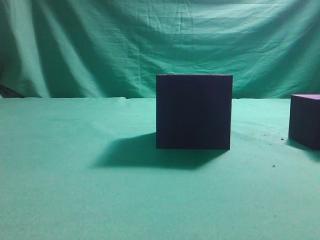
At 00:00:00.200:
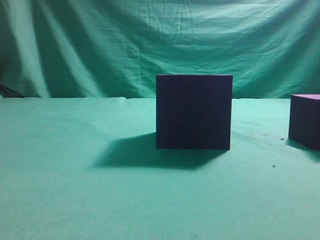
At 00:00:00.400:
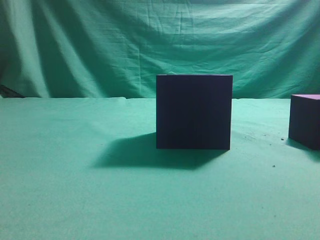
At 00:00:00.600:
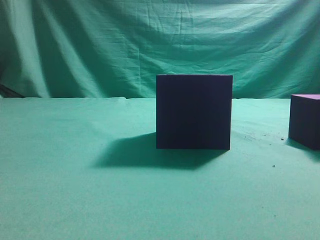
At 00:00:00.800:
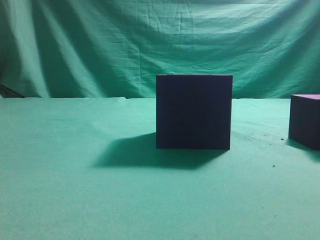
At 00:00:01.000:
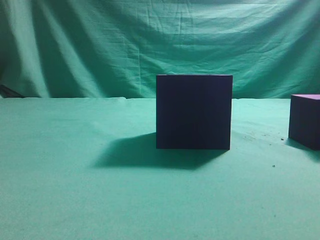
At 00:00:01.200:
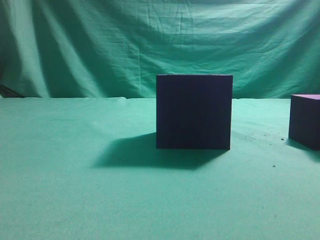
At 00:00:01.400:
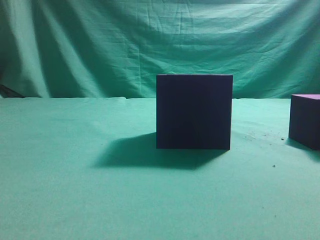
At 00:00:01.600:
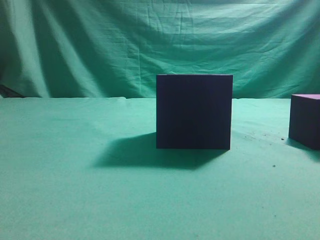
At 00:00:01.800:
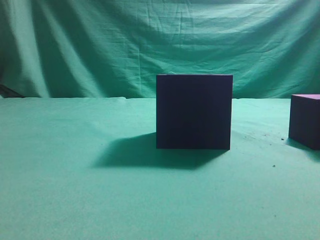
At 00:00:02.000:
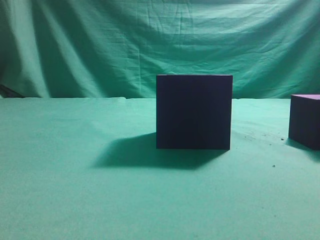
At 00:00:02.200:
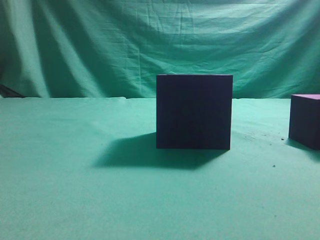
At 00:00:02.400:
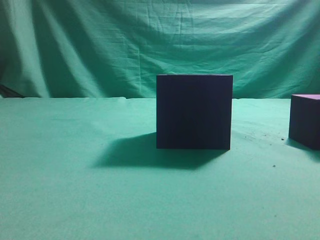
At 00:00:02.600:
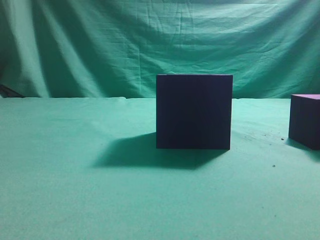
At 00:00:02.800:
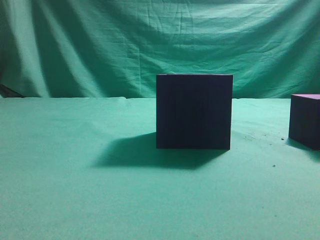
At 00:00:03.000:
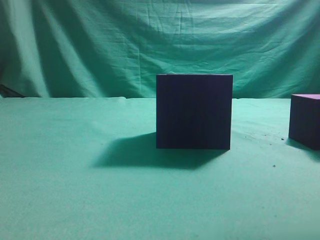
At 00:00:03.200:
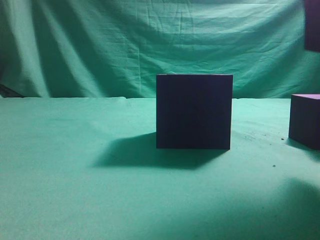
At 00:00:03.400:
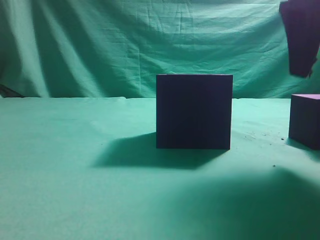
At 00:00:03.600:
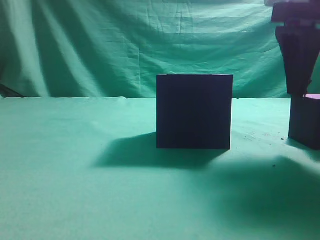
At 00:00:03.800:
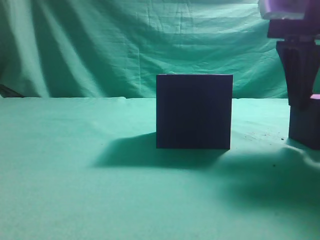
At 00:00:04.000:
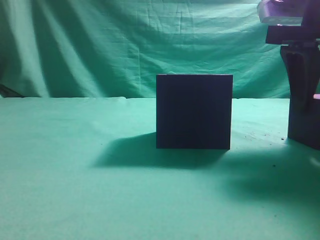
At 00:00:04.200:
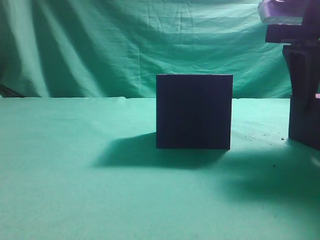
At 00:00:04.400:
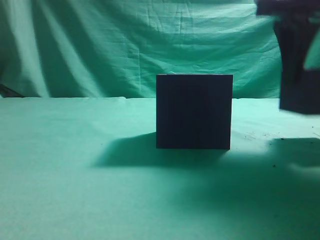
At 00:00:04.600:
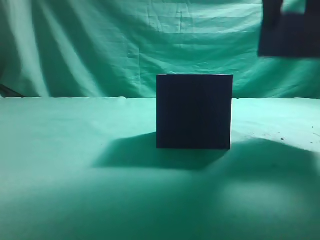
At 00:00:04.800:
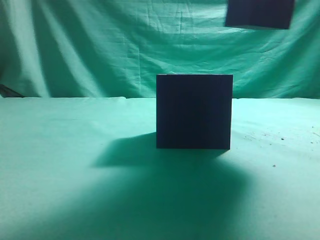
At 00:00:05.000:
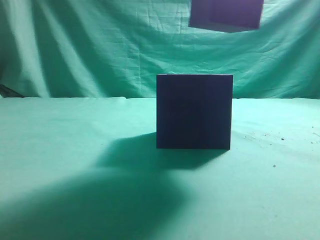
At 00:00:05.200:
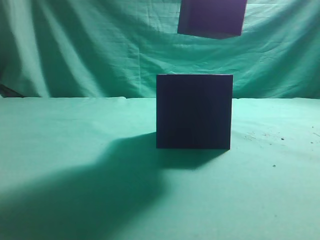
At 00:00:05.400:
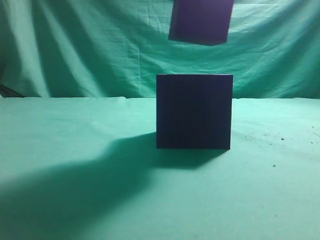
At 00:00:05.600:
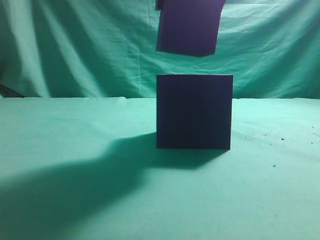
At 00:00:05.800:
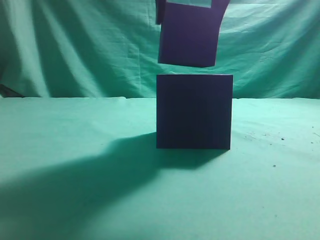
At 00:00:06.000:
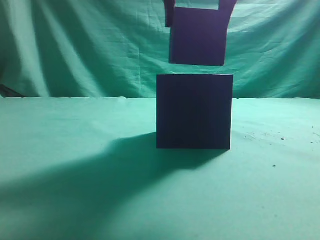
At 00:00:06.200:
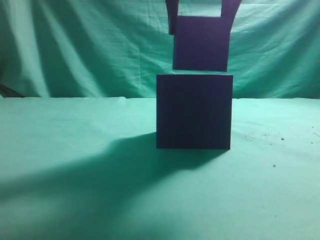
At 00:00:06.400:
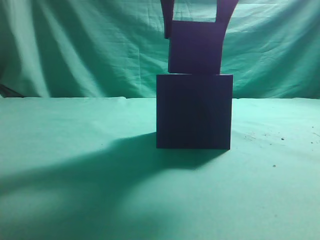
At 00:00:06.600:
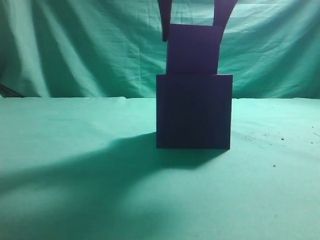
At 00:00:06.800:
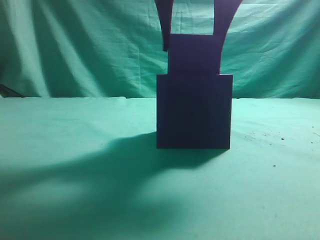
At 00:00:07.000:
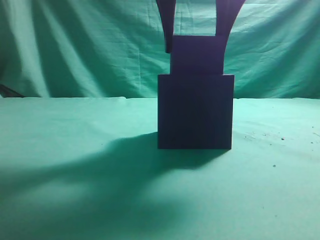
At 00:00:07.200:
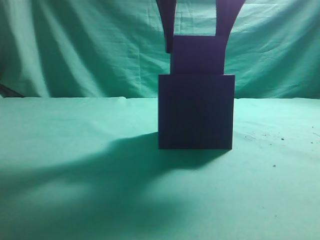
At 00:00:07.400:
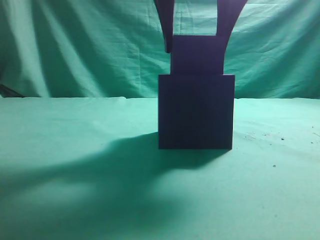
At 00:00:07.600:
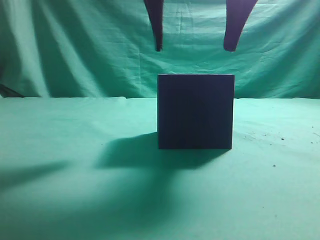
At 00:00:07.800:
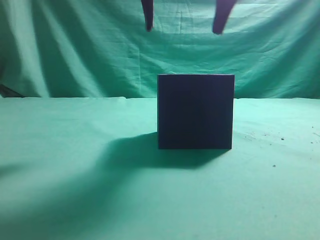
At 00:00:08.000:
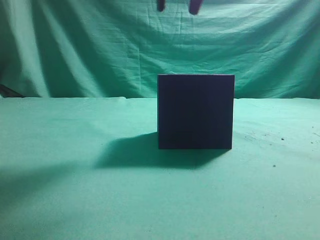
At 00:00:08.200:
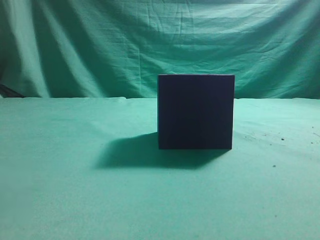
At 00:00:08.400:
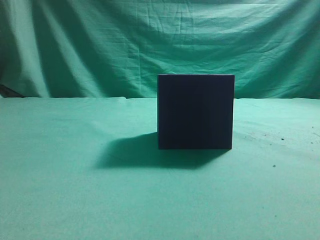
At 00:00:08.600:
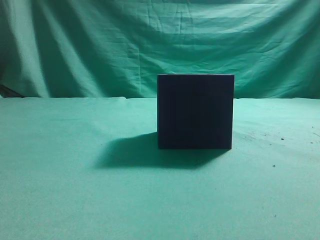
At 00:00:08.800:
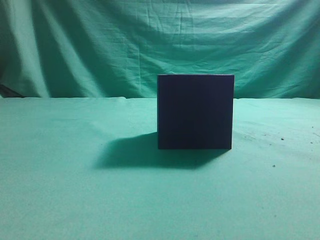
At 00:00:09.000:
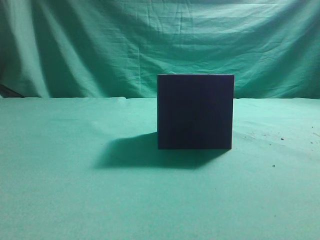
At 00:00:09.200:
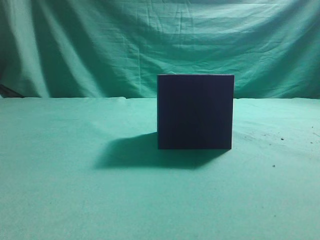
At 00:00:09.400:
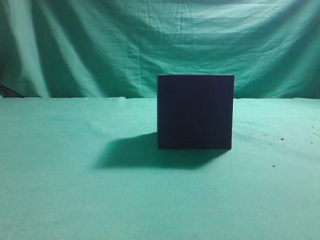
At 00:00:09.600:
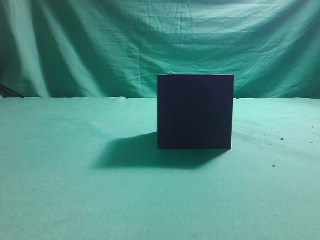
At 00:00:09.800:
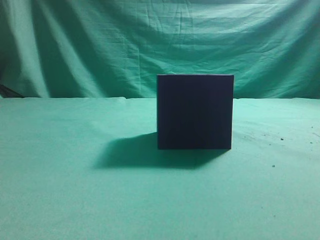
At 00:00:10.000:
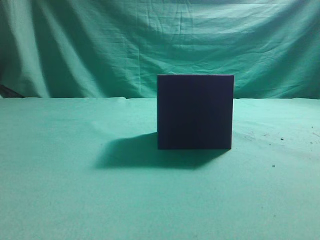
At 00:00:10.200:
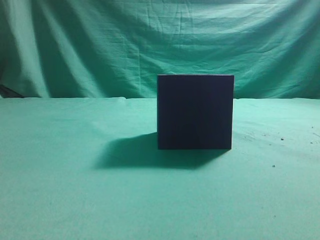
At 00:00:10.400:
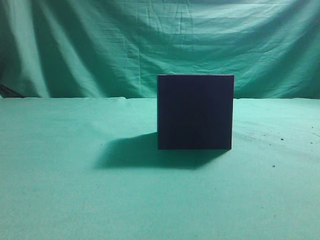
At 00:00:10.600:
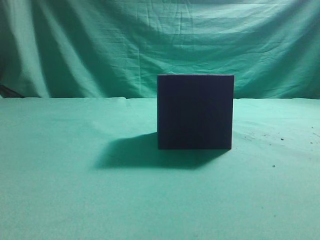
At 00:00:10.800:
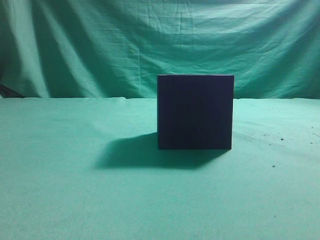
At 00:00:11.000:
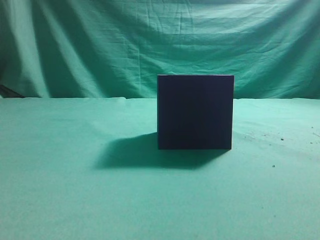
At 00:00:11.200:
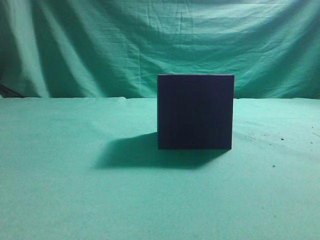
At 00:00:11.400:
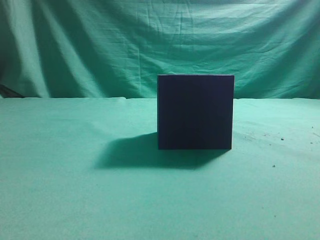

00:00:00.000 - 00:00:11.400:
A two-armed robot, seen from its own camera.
Task of the whole recording: pick up the cube block and place it into the cube groove.
Step, 00:00:00.000 - 00:00:04.400: Grasp the cube.
Step, 00:00:04.600 - 00:00:07.600: Place cube into the cube-shaped recess.
00:00:02.800 - 00:00:04.200: The right gripper heads forward and downward, covering roughly 10 cm, and opens.
00:00:04.200 - 00:00:05.600: The right gripper travels to the left and upward by approximately 15 cm.
00:00:05.600 - 00:00:07.200: The grippers move only a little.
00:00:07.200 - 00:00:08.600: The right gripper is displaced upward, to the right and backward by roughly 15 cm, and closes up.
00:00:08.600 - 00:00:10.000: The right gripper travels to the right and backward by some 20 cm.
